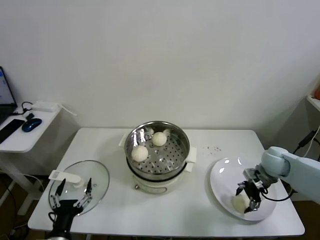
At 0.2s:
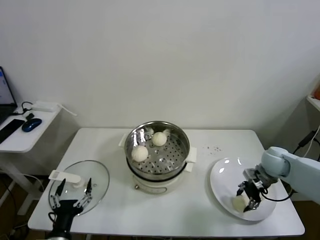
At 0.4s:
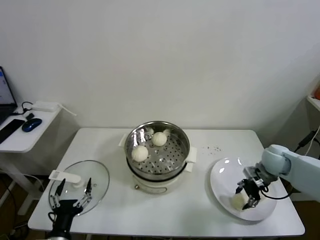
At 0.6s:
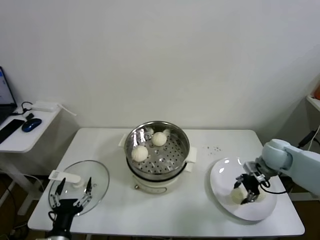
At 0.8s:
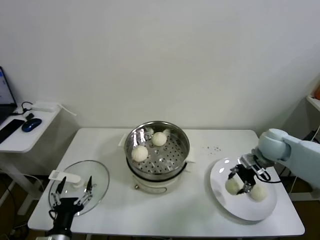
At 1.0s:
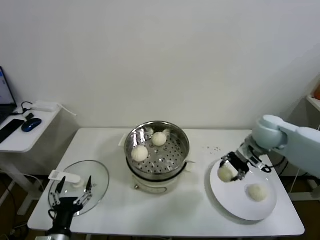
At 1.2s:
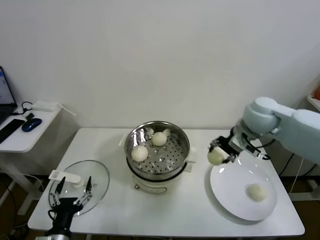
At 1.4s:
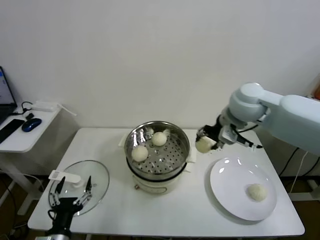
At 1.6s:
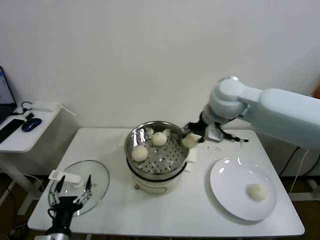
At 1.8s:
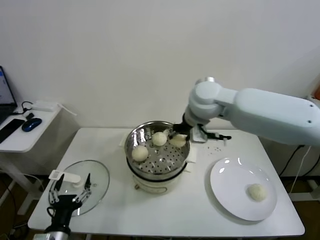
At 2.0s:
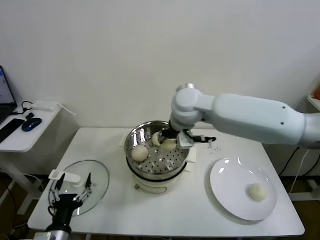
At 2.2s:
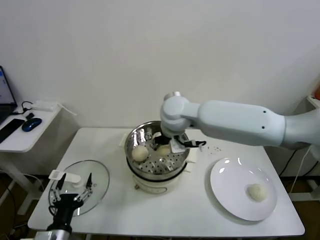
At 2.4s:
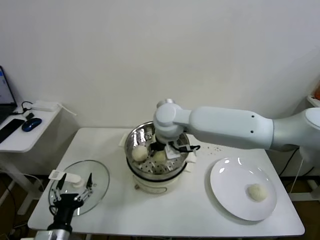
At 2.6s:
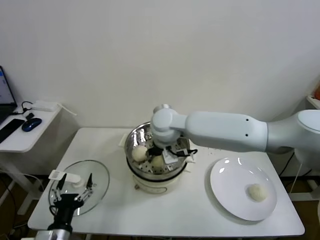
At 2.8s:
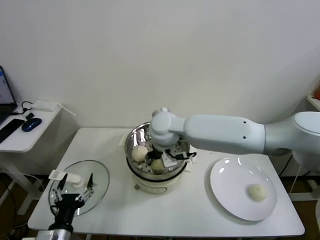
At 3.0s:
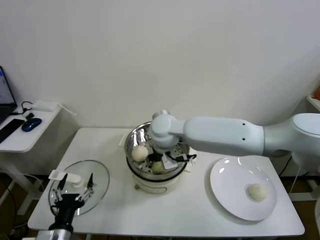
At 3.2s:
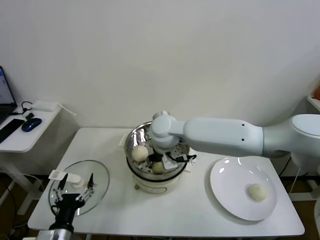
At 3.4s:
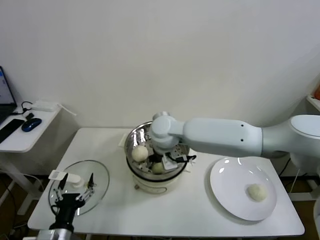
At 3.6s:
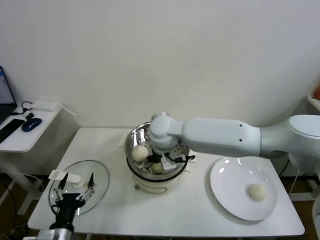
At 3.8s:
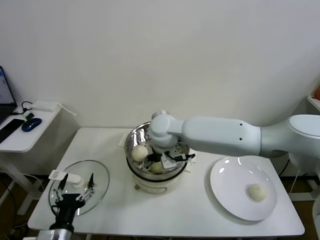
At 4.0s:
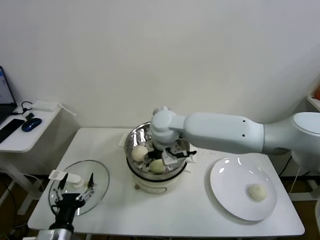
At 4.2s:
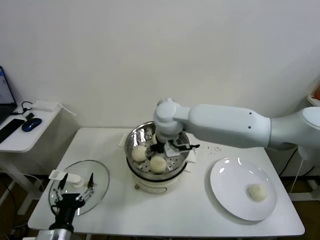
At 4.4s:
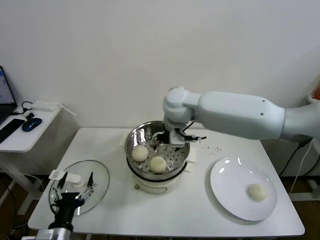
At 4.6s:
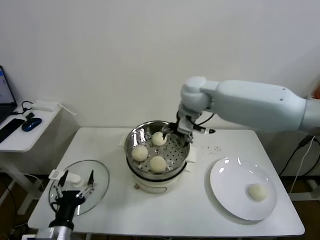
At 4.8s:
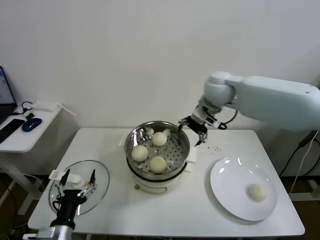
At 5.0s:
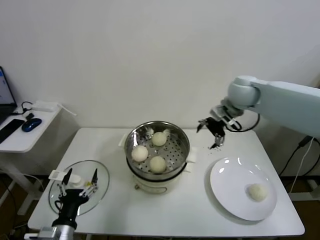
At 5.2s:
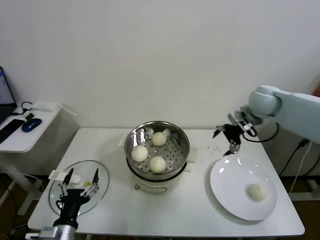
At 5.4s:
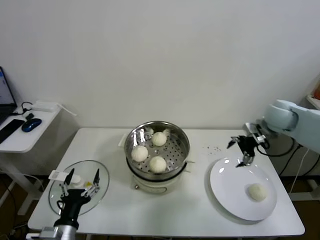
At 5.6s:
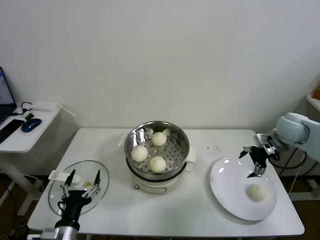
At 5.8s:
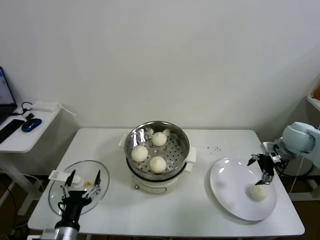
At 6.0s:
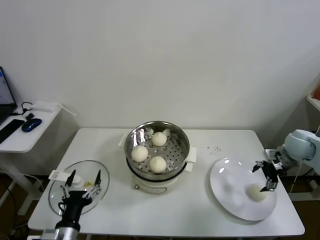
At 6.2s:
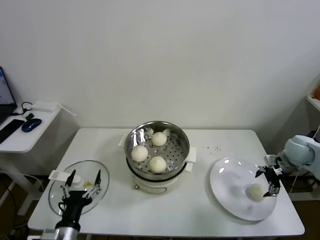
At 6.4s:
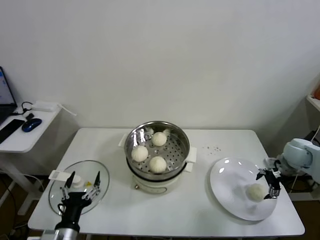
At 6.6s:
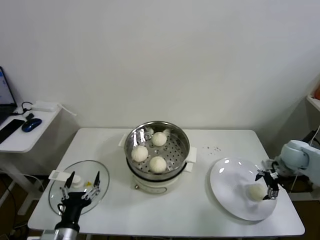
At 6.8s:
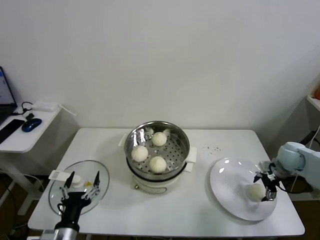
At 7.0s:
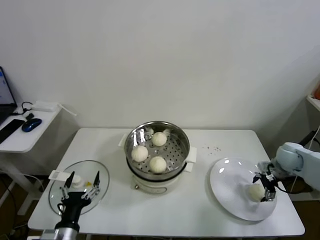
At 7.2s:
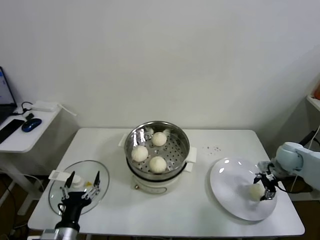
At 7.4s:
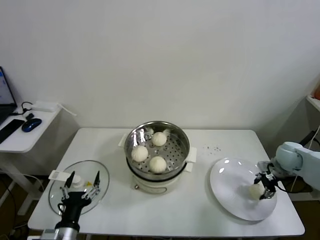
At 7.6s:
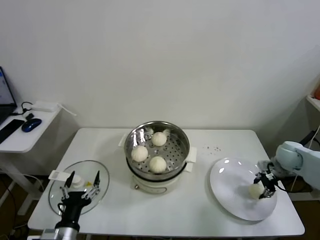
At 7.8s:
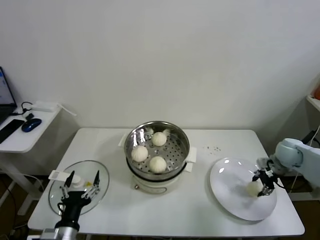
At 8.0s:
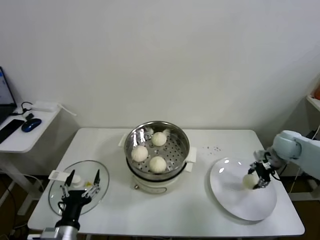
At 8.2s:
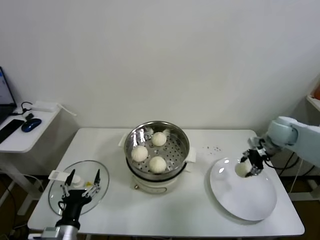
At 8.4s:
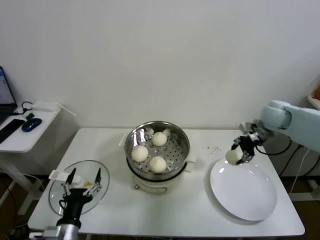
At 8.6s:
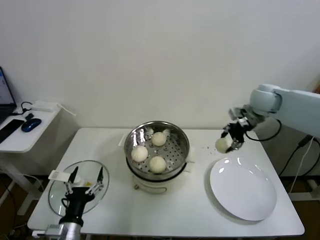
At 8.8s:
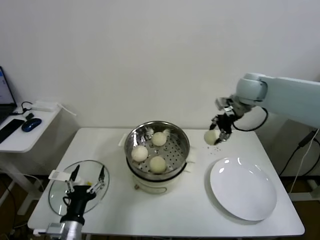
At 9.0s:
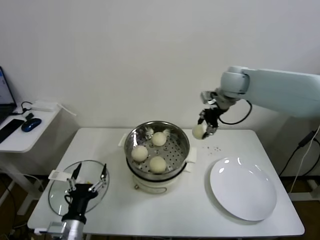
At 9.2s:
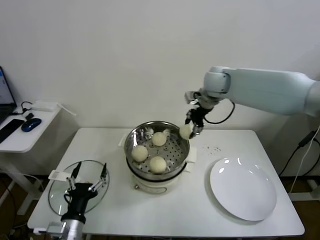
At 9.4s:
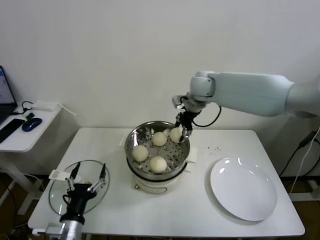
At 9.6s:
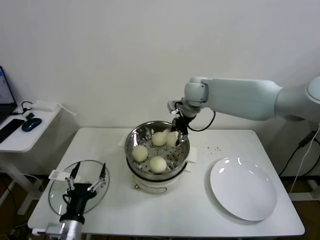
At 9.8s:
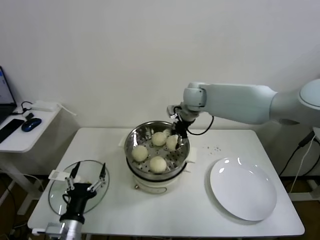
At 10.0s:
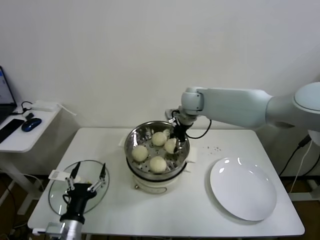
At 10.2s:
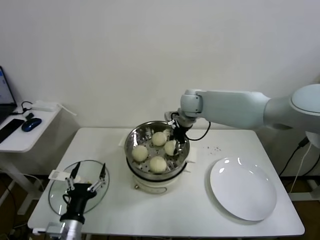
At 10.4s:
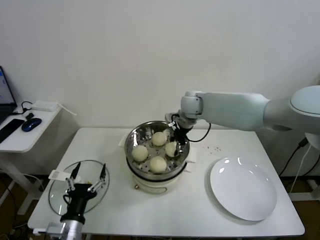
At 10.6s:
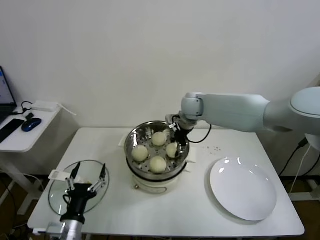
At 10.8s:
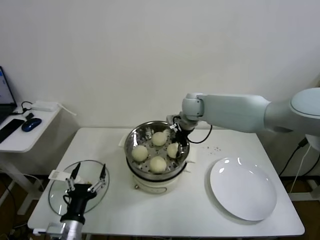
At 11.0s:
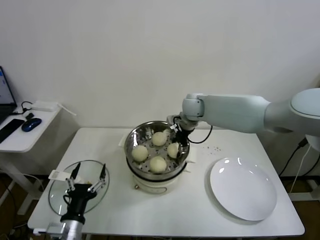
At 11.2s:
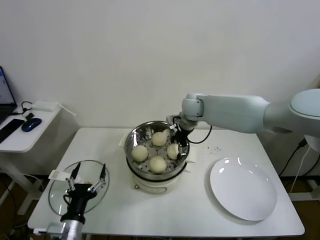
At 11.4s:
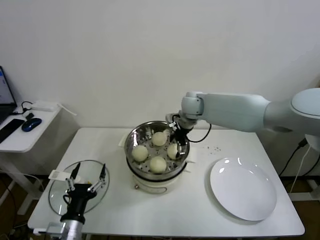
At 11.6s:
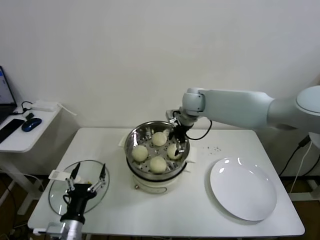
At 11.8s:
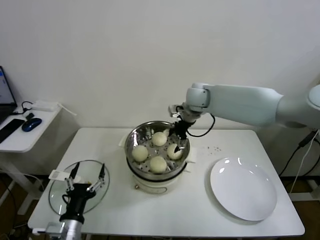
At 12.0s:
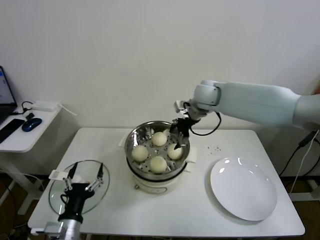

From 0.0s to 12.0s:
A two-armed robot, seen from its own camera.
Task of the whole recording: take steamed baozi put them in steamer.
Step, from 0.6s to 4.0s: Place the baozi on the steamer with right gripper.
Step, from 4.2s to 7.6s: Grasp the baozi in the plate with right gripper.
Step, from 7.8s to 11.4s: Place the baozi on the steamer with right gripper.
From 0.0s to 1.6s: The right gripper goes about 35 cm upward and to the left, and closes its fingers.
From 1.6s to 3.0s: The right gripper travels to the left and downward by about 20 cm.
From 3.0s to 4.4s: The right gripper is displaced upward by about 5 cm, and opens up.
From 4.4s to 6.0s: The right gripper moves to the right, approximately 40 cm.
From 6.0s to 7.6s: The right gripper is displaced downward by approximately 5 cm, and closes its fingers.
From 7.6s to 9.0s: The right gripper is displaced upward, to the left and forward by approximately 35 cm.
From 9.0s to 10.4s: The right gripper shifts approximately 15 cm to the left and downward.
From 10.4s to 12.0s: The right gripper shifts by some 5 cm, and opens its fingers.

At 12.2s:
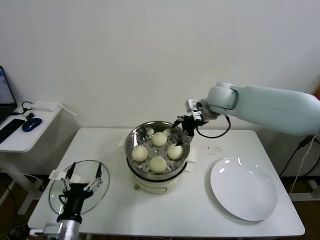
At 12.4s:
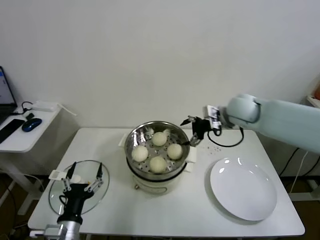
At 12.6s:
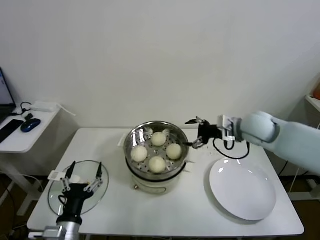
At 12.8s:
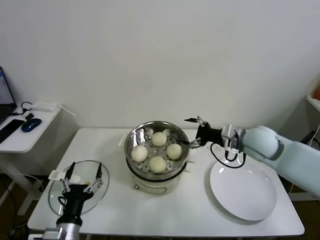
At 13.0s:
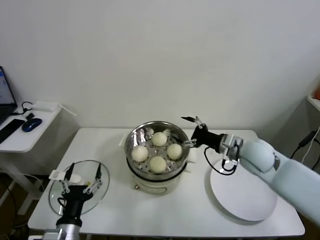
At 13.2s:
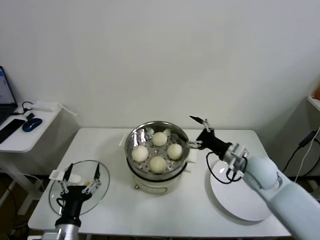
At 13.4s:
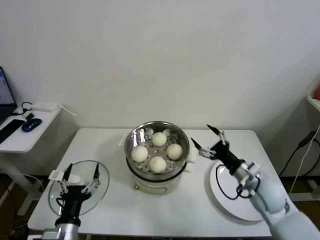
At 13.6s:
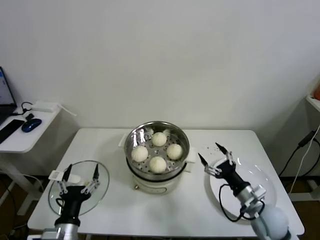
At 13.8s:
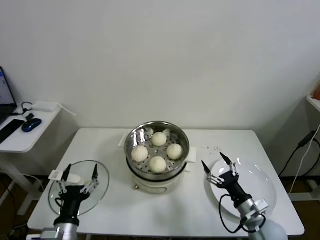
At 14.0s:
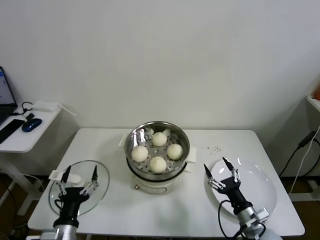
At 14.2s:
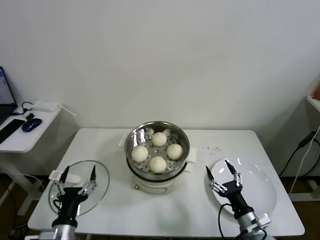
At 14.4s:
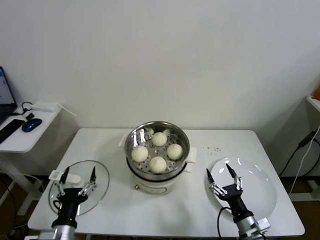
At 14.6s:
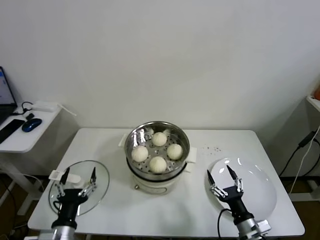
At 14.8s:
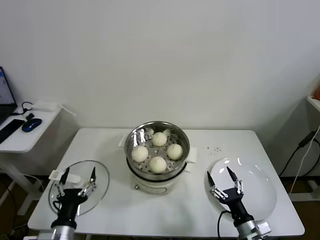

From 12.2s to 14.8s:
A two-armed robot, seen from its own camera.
Task of the whole recording: take steamed baozi put them in steamer.
From 12.2s to 13.4s: The right gripper moves backward, downward and to the right, roughly 30 cm.
From 13.4s to 14.8s: The right gripper shifts some 20 cm backward and downward.

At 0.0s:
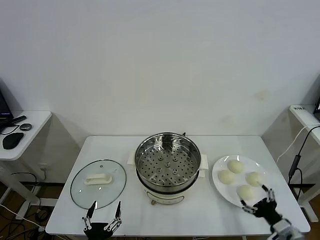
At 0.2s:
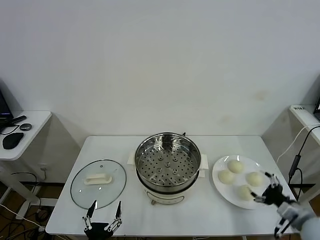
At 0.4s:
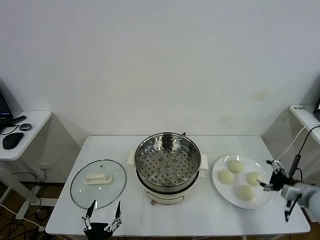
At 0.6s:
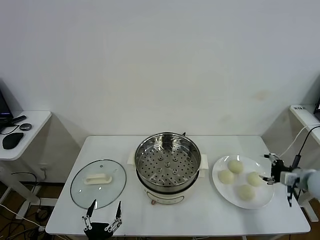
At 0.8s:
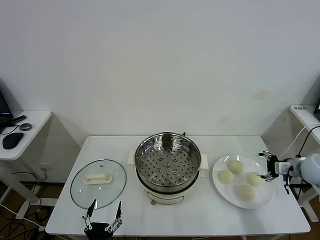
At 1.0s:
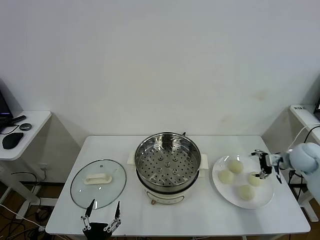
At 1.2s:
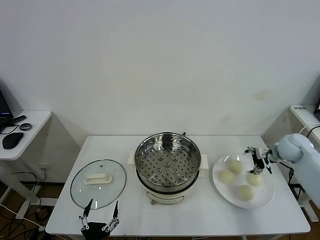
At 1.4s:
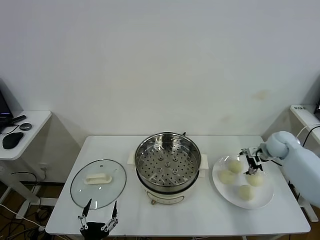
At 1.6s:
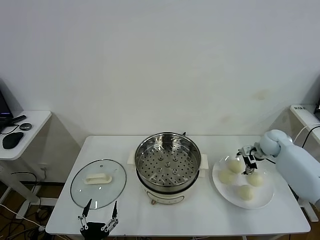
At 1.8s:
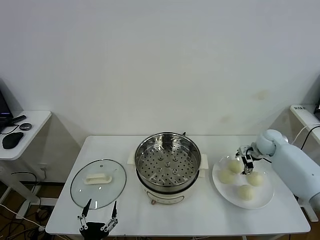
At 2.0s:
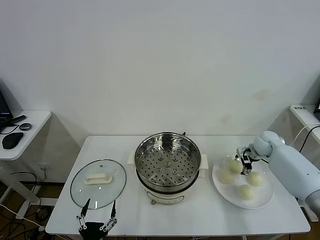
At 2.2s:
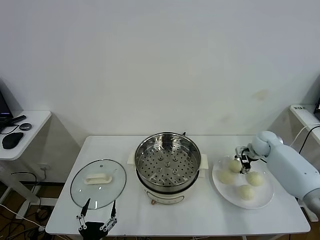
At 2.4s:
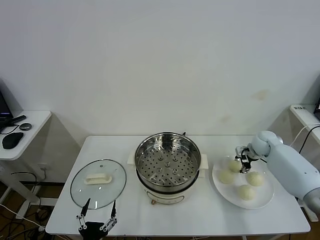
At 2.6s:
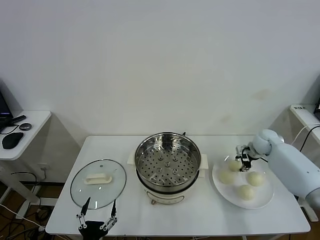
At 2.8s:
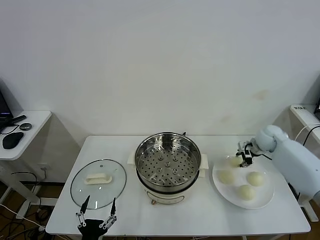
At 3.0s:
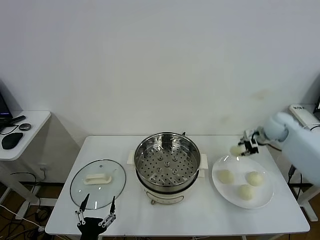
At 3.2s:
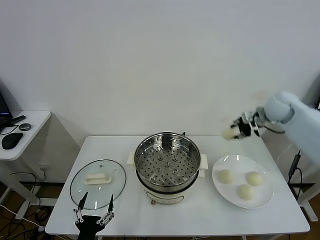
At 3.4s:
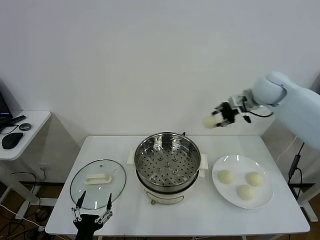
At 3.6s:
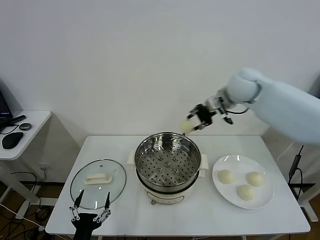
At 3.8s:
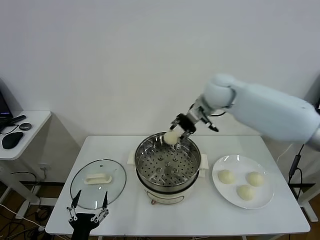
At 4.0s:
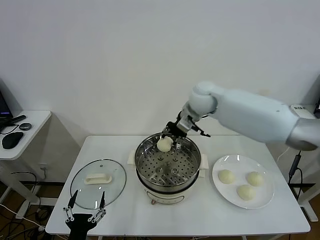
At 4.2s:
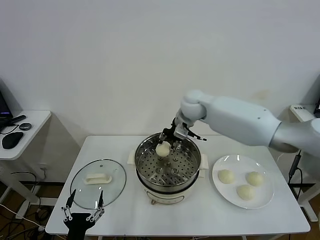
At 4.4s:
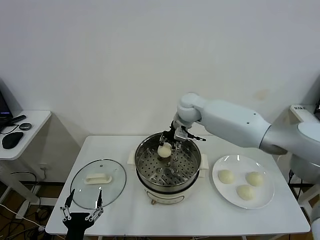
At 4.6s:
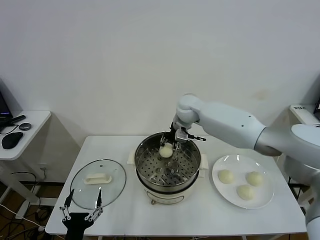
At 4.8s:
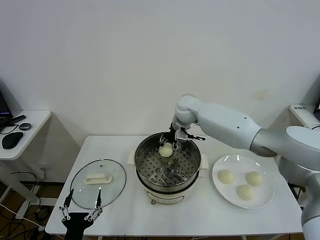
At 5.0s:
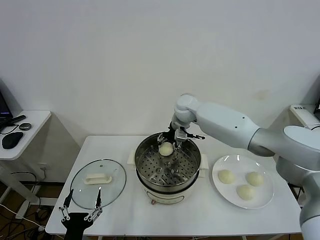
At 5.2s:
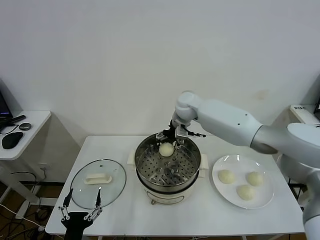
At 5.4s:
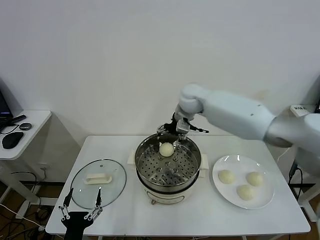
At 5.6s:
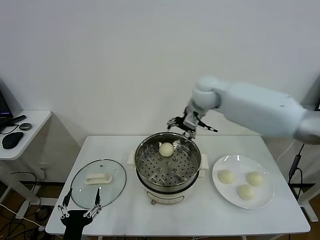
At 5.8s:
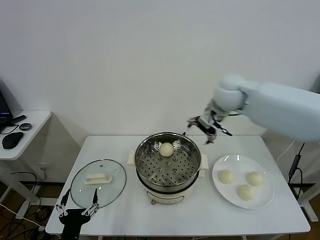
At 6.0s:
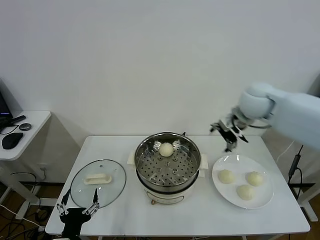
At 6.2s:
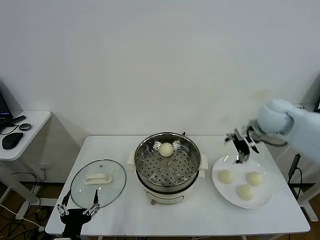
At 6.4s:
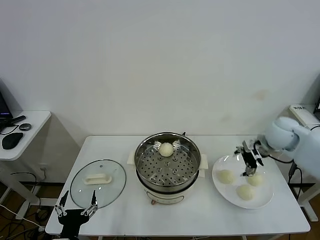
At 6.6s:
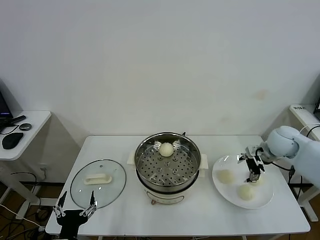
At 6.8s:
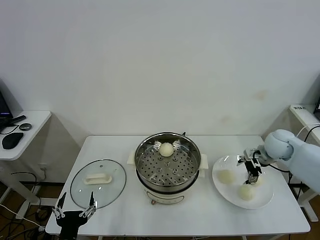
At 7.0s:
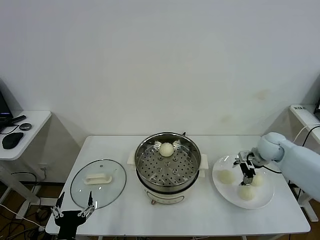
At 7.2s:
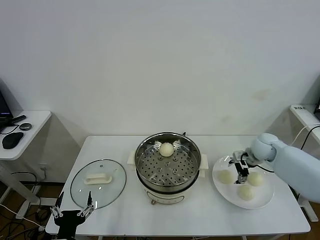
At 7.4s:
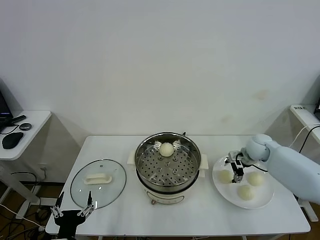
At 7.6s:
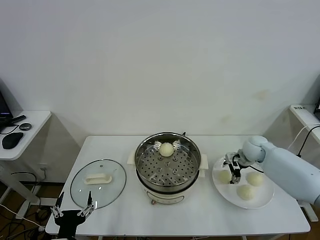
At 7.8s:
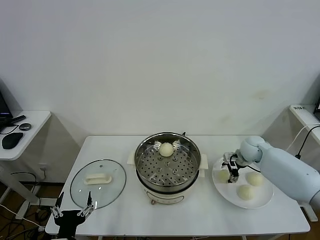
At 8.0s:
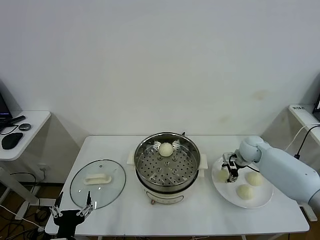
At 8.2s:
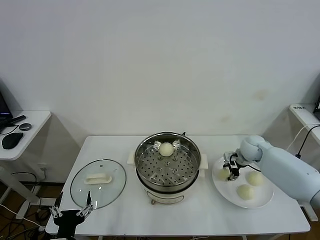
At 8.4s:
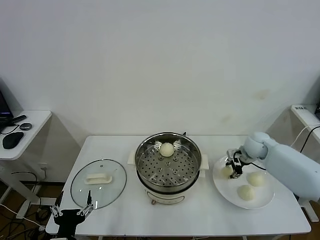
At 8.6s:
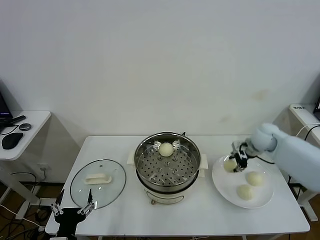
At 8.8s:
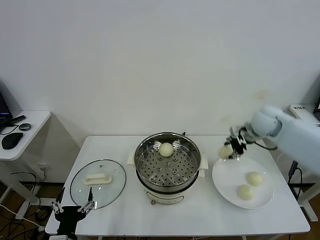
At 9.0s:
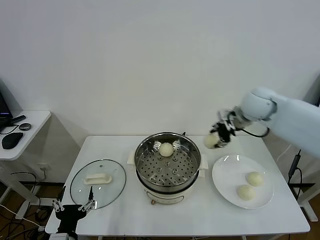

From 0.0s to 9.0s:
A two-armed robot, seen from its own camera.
Task of the whole recording: take steamed baozi put them in steamer.
Step, from 0.0s to 2.4s: Grasp the baozi in the plate with right gripper.
Step, from 2.6s to 5.2s: Place the baozi on the steamer with right gripper.
Step, from 5.4s to 8.2s: Grasp the baozi in the plate with right gripper.
From 1.6s to 3.0s: The right gripper is displaced upward by about 10 cm, and closes its fingers.
From 3.0s to 4.4s: The right gripper shifts roughly 30 cm to the left.
From 4.4s to 6.0s: The right gripper shifts approximately 20 cm to the right, backward and upward, and opens.
From 6.0s to 7.6s: The right gripper goes about 25 cm downward.
From 7.6s to 9.0s: The right gripper shifts some 20 cm upward, and closes.
